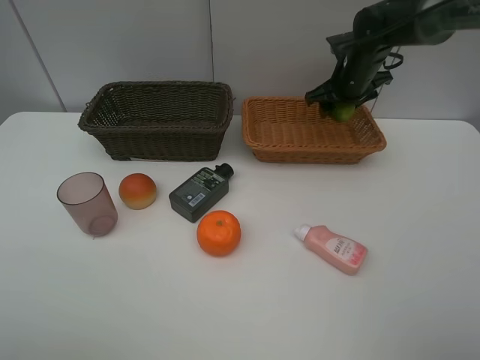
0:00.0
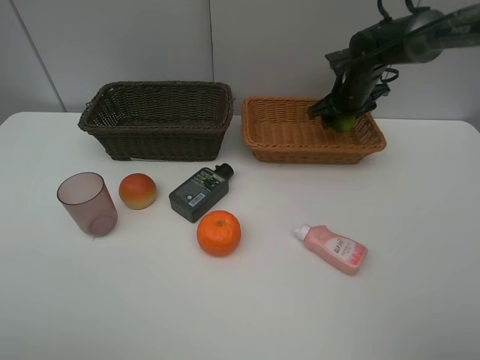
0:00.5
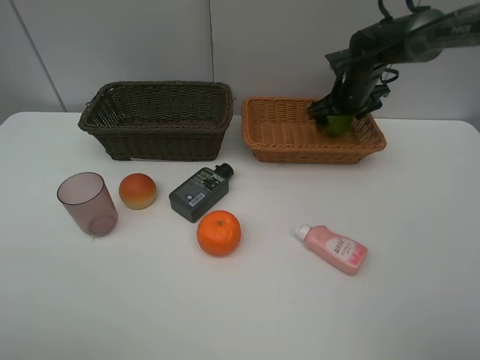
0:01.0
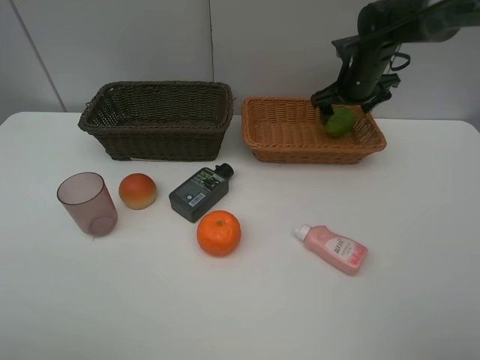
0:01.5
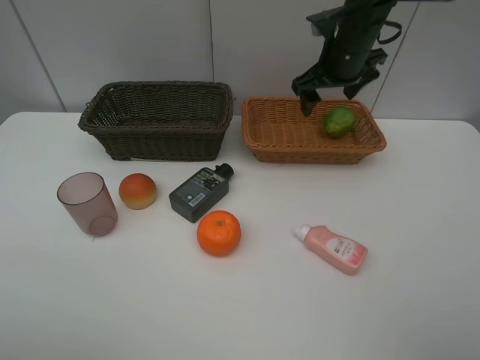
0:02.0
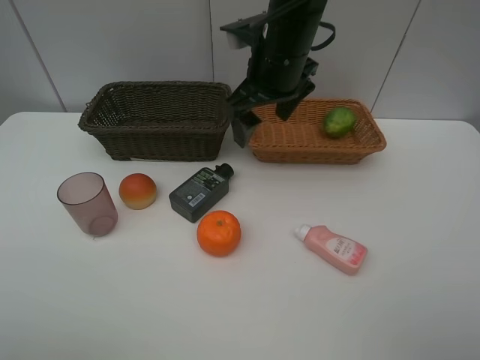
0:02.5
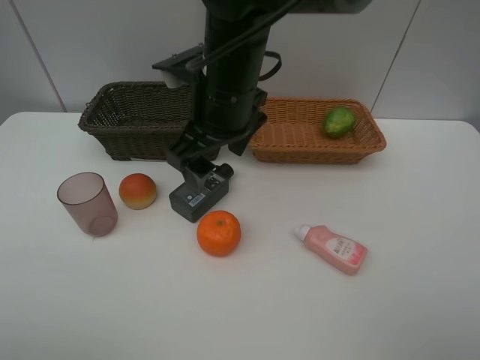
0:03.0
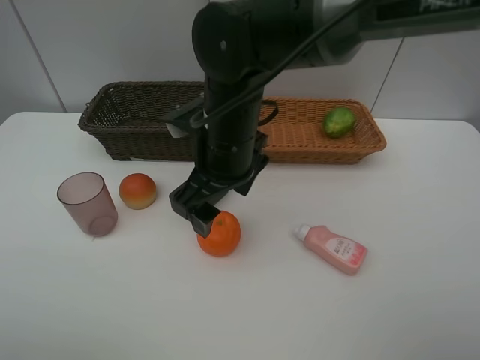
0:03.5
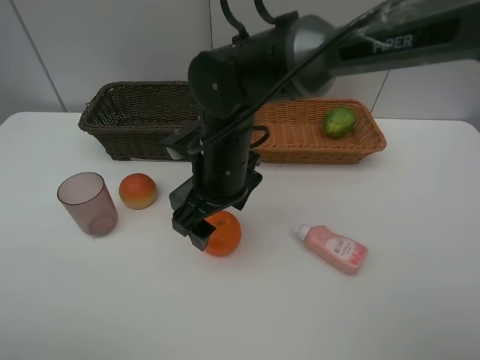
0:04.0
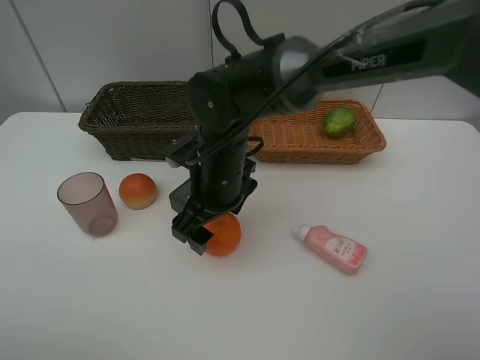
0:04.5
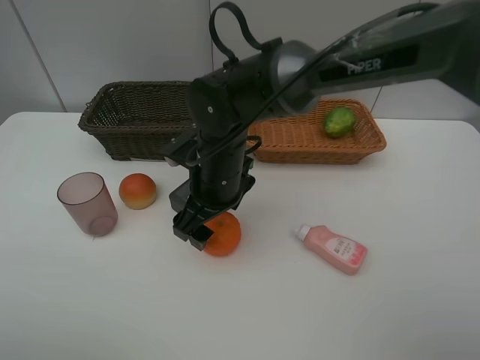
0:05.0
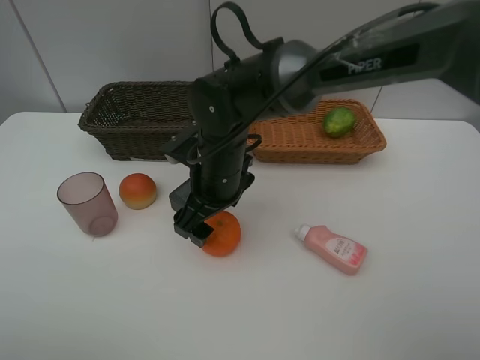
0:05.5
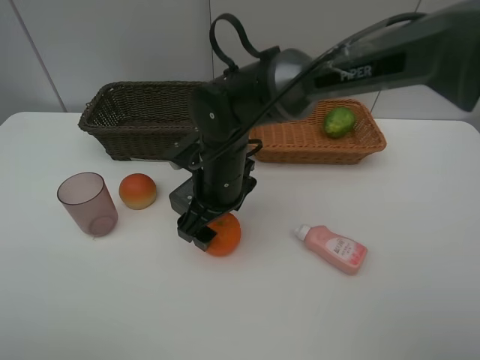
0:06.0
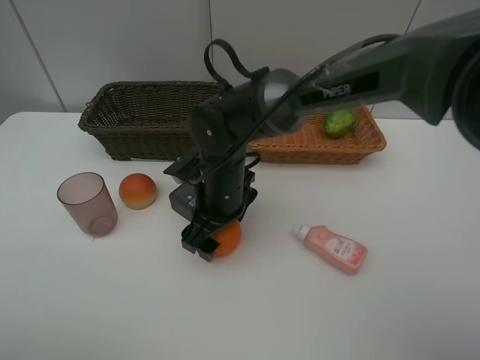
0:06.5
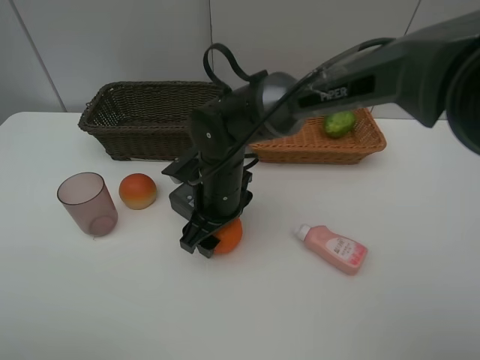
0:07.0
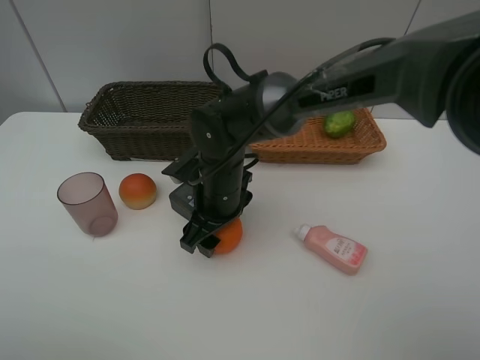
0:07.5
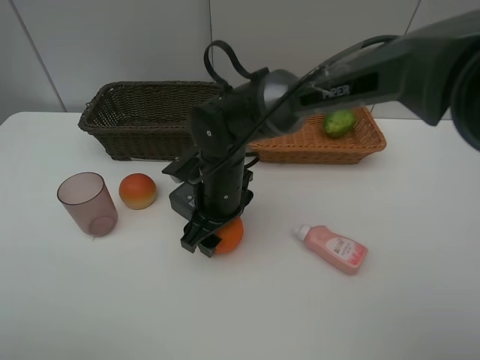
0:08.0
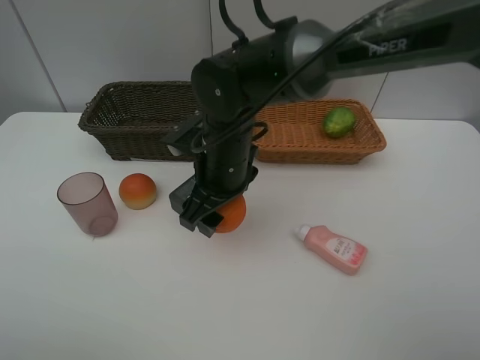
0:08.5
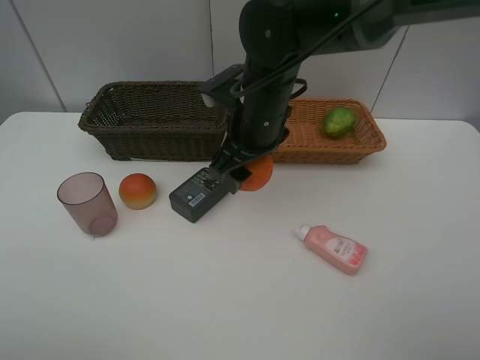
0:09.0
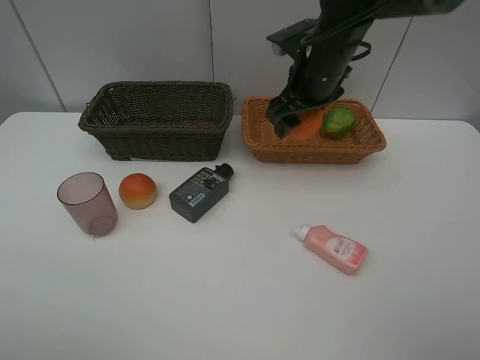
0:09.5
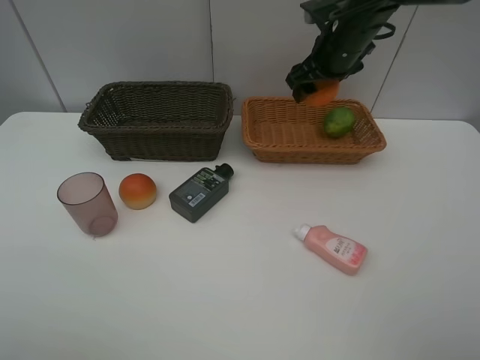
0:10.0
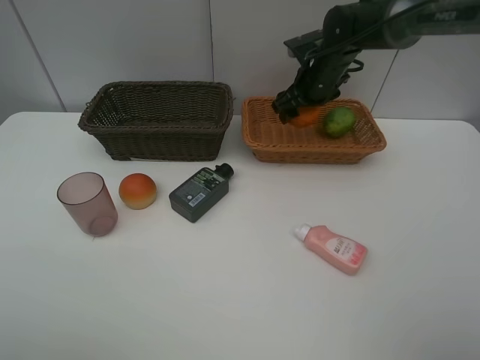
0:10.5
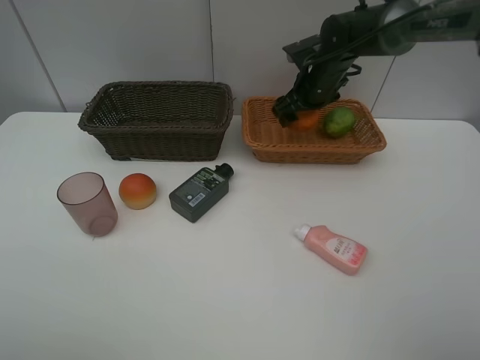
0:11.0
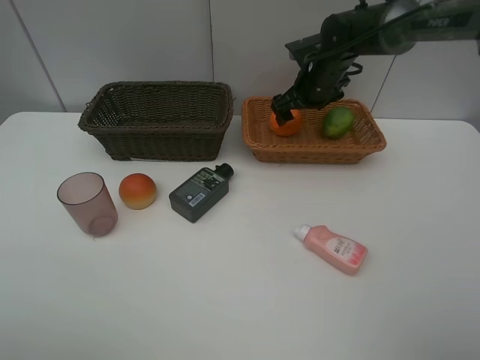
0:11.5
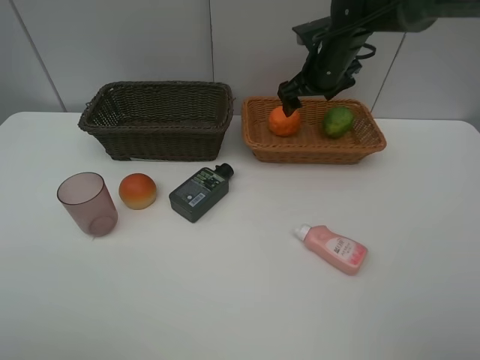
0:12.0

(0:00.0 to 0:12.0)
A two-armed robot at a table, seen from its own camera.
Task of the whole recording: place multiple objects separately in different baskets.
0:00.0 - 0:02.0: The right gripper moves upward, backward and to the left, roughly 10 cm, and opens.
0:02.0 - 0:04.0: The right gripper heads to the left, backward and downward, covering some 25 cm.
0:04.0 - 0:08.0: There are only small adjustments of the grippers.
0:08.0 - 0:10.0: The right gripper heads to the right, forward and upward, covering roughly 25 cm.
0:10.0 - 0:12.0: The right gripper opens.

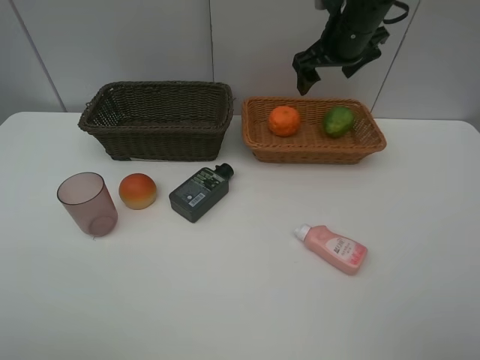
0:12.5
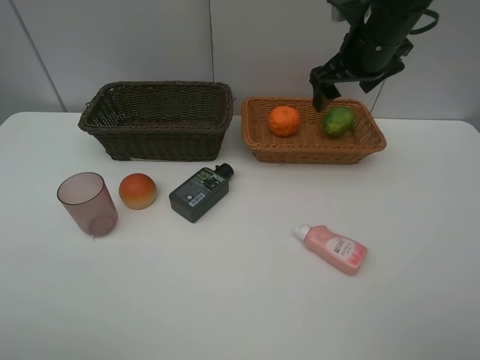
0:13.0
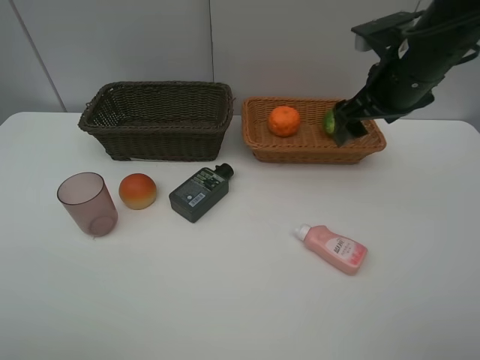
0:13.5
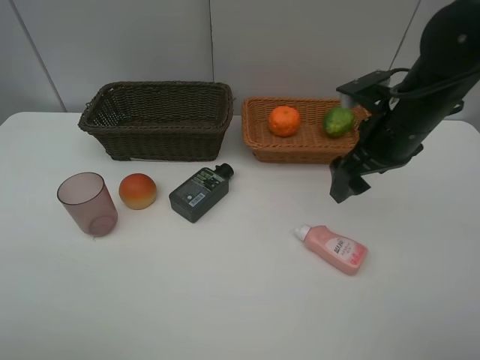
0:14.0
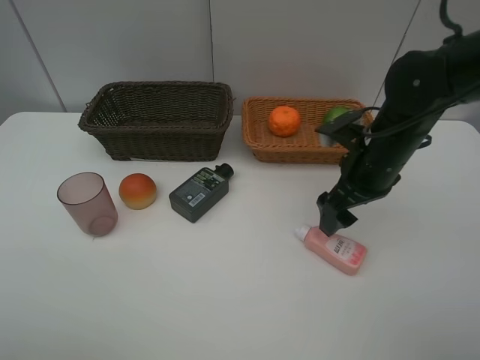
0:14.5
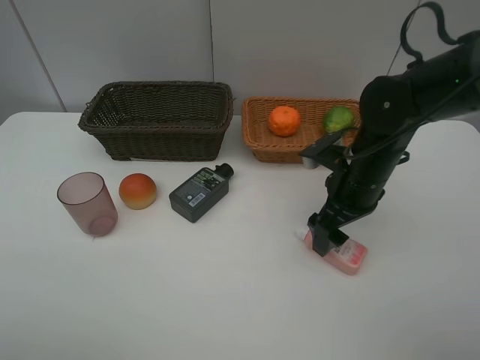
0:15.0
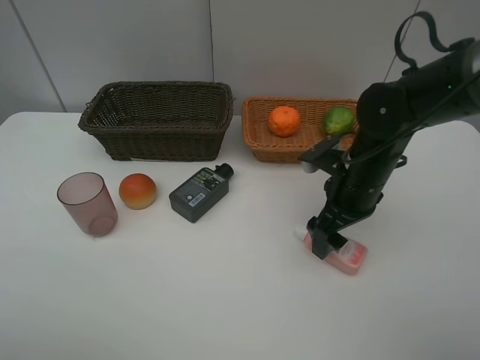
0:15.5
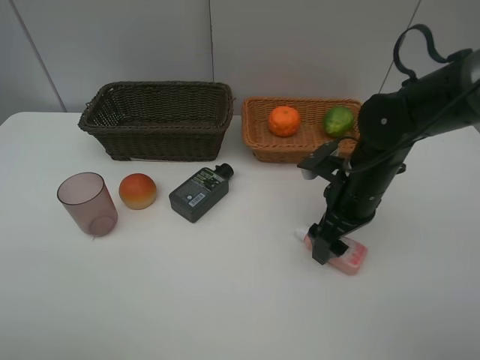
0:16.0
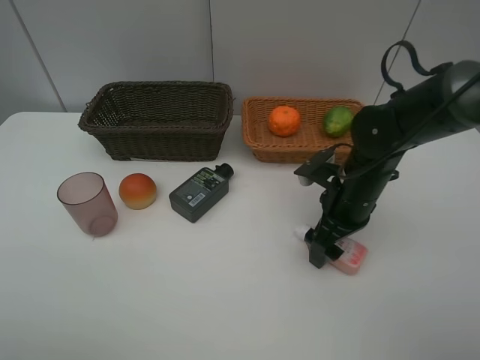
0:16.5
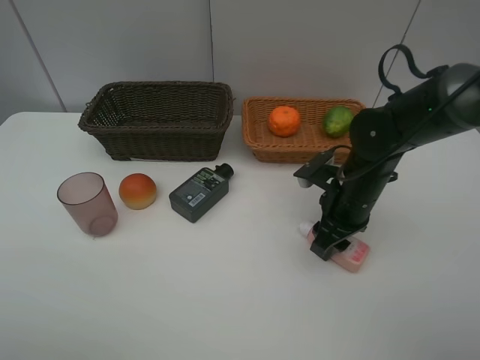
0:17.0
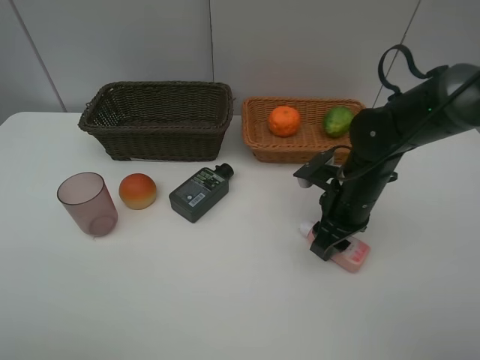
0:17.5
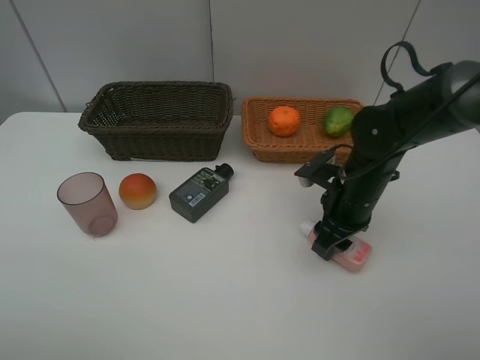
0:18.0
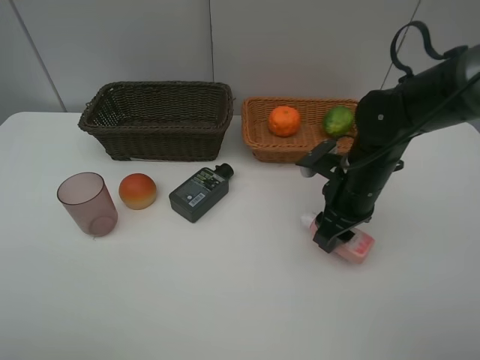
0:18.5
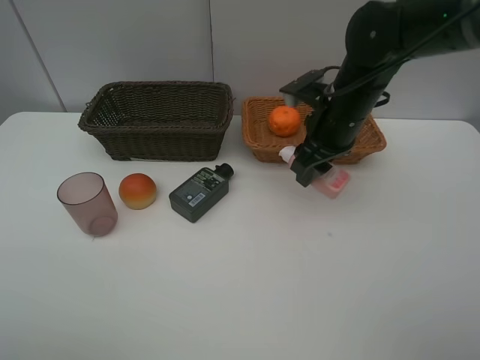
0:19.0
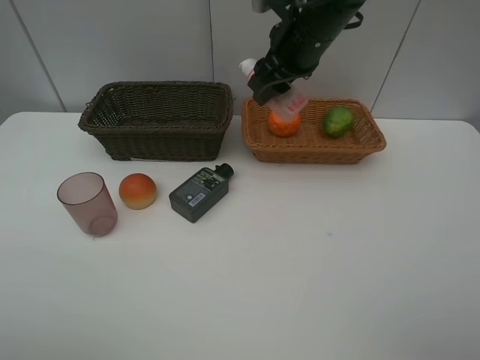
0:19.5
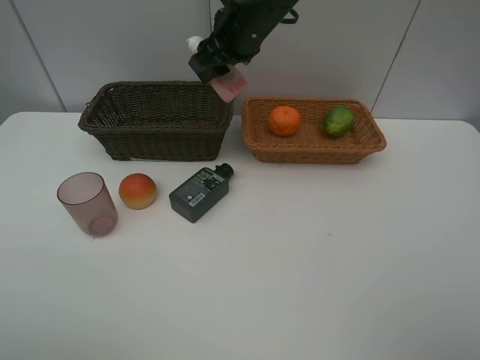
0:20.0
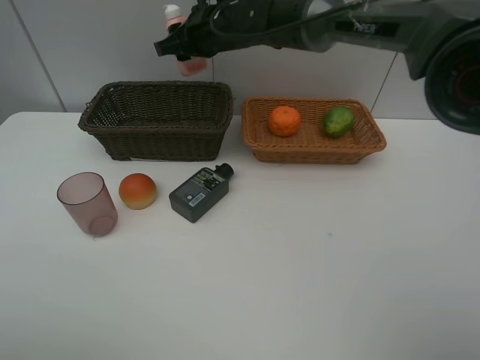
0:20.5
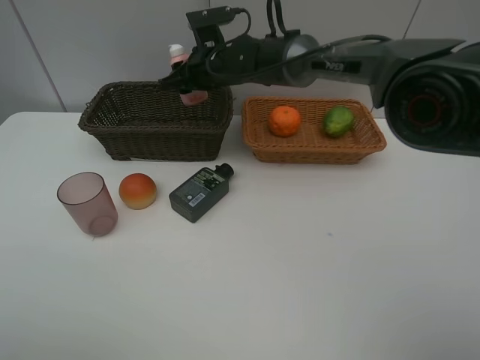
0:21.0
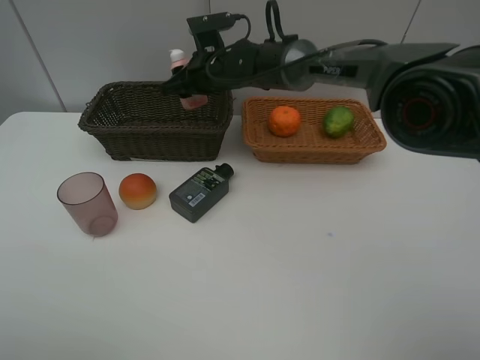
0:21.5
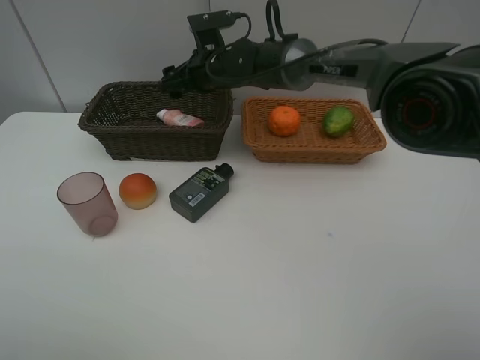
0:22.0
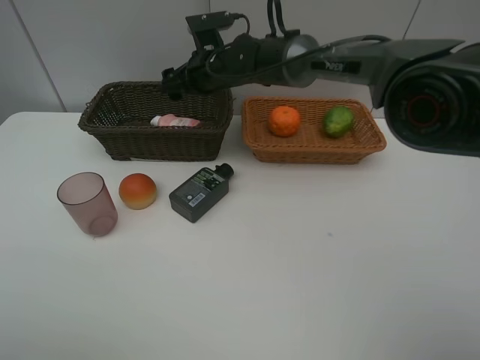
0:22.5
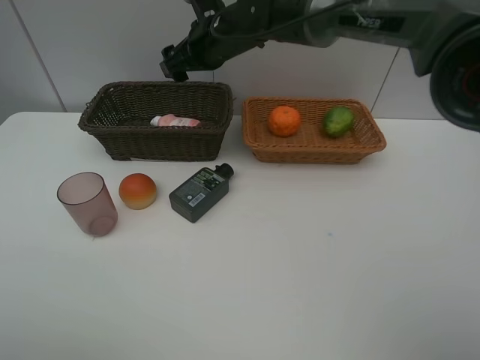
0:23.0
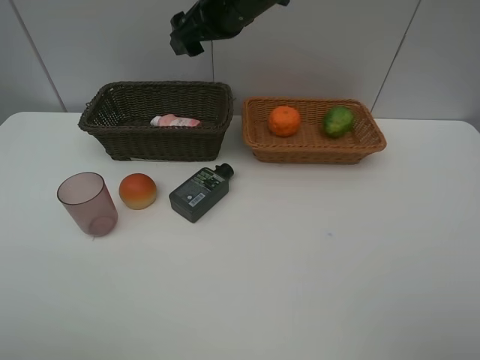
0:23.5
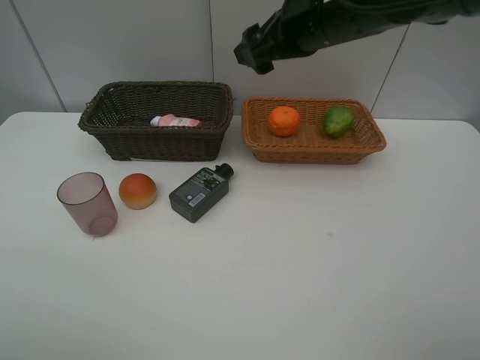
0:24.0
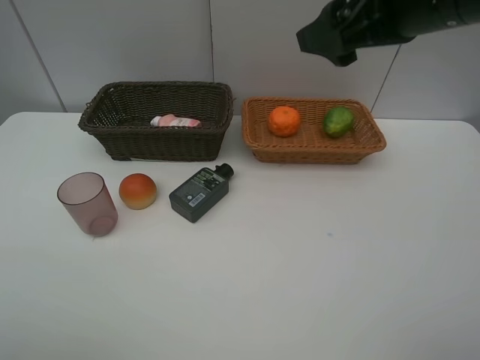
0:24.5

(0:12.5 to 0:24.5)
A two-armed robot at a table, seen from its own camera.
Task of the whole recording: place multiple objects separately in different baskets.
0:12.5 - 0:14.5: The right gripper is displaced backward and downward by roughly 20 cm.
0:14.5 - 0:16.5: The right gripper is displaced downward by roughly 5 cm.
0:16.5 - 0:18.5: The right gripper closes its fingers.
0:18.5 - 0:20.5: The right gripper moves to the left, forward and upward, some 30 cm.
0:20.5 - 0:22.5: The right gripper heads downward, covering some 5 cm, and opens up.
0:22.5 - 0:24.5: The right gripper shifts approximately 35 cm backward, to the right and upward.

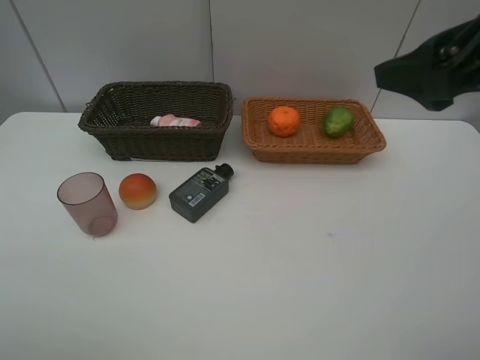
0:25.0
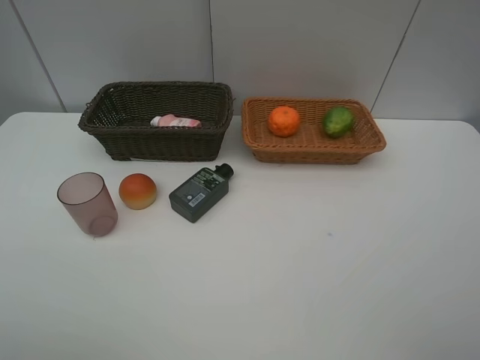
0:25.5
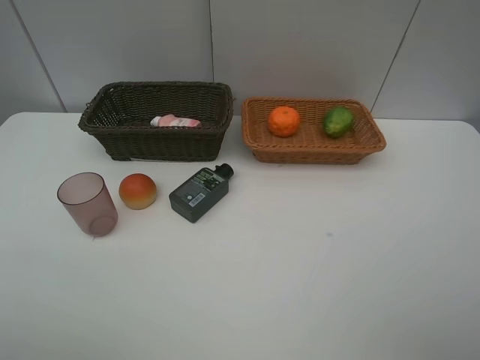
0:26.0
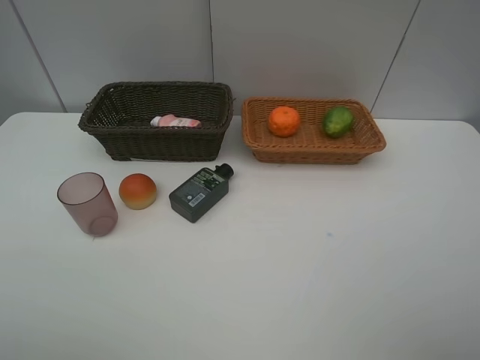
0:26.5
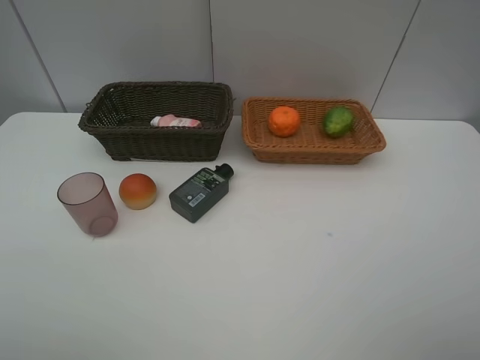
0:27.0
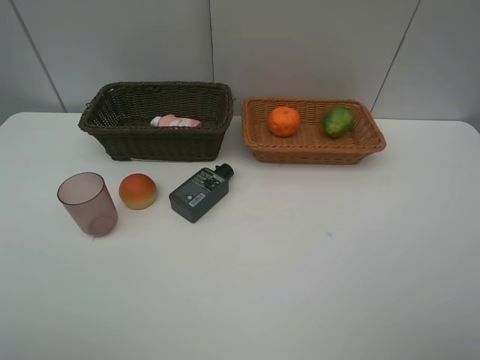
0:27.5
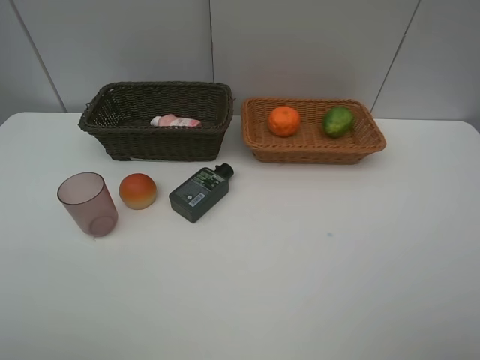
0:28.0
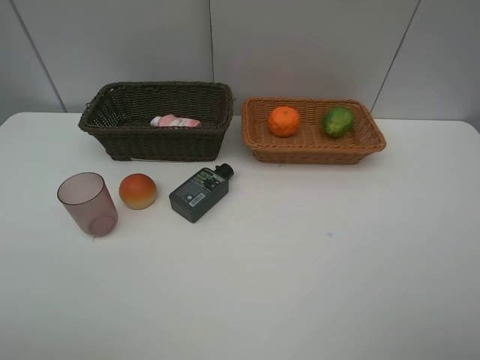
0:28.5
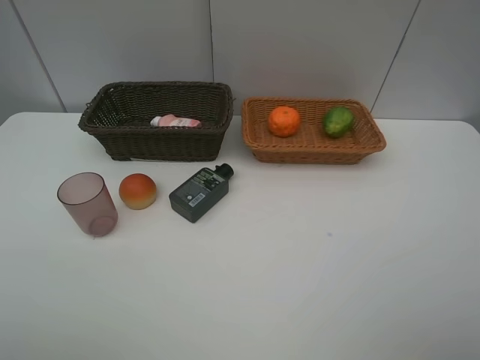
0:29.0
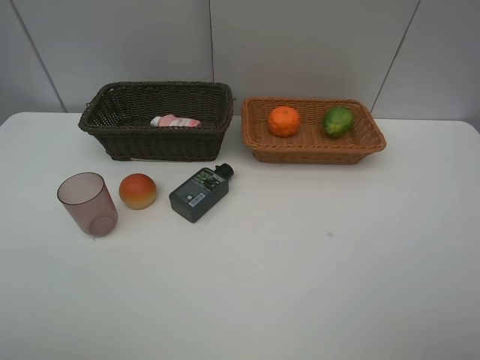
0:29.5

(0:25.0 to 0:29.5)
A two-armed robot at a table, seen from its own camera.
Task of the whole recording: place multiple objects separately in different baskets.
0:25.0 - 0:27.0: The right gripper goes roughly 20 cm backward and to the right.
